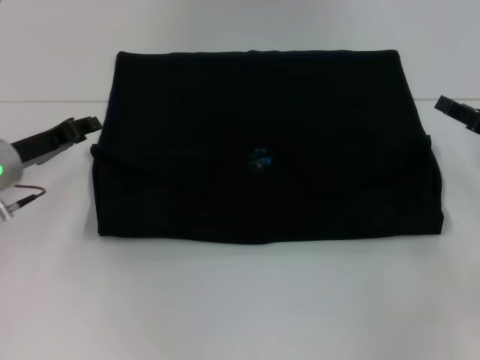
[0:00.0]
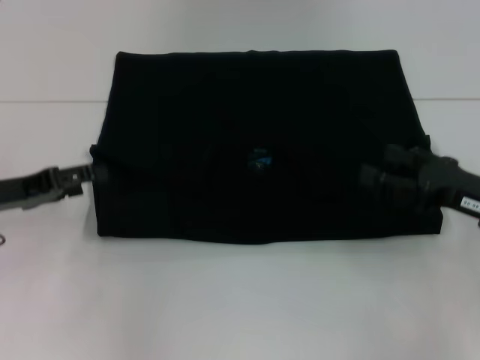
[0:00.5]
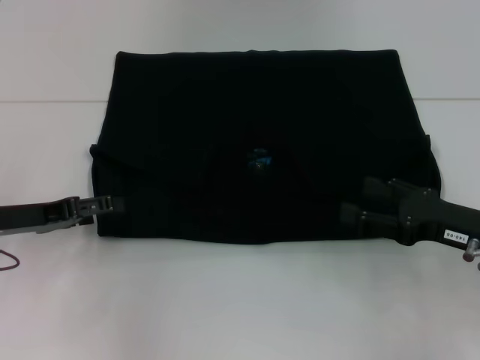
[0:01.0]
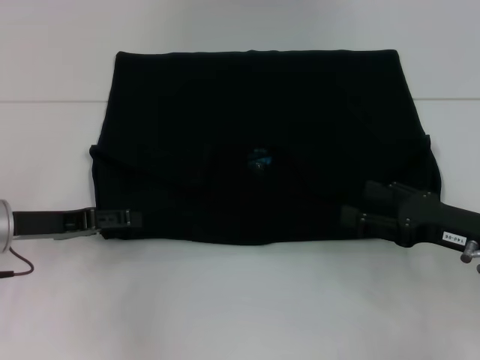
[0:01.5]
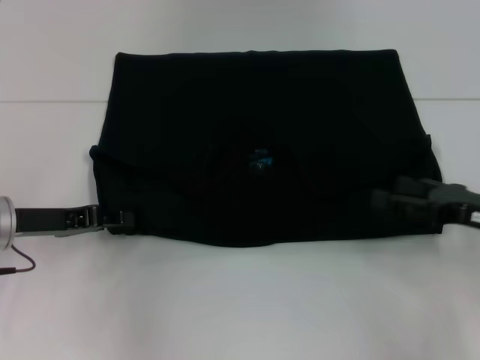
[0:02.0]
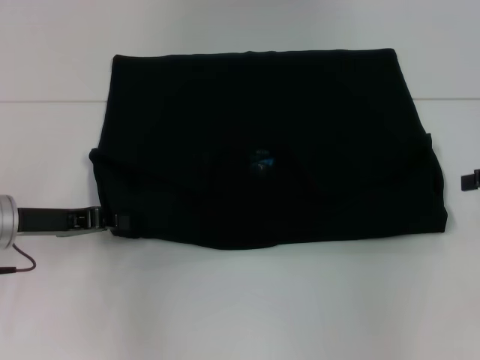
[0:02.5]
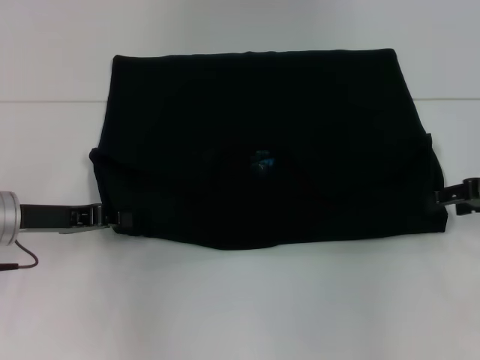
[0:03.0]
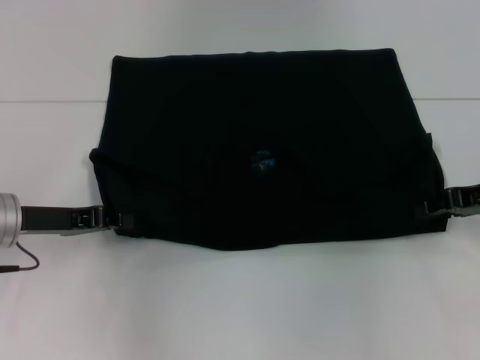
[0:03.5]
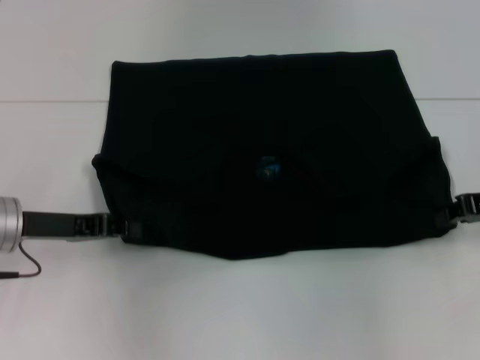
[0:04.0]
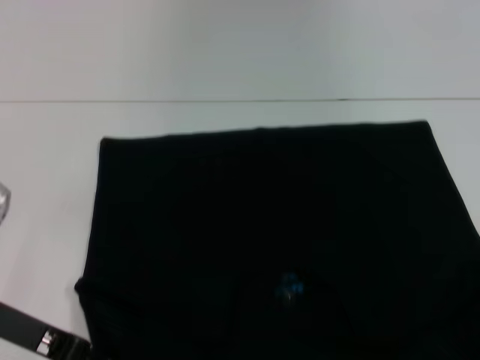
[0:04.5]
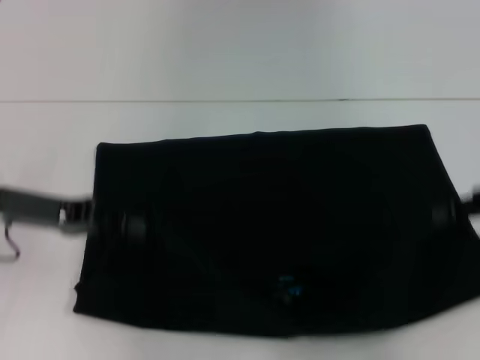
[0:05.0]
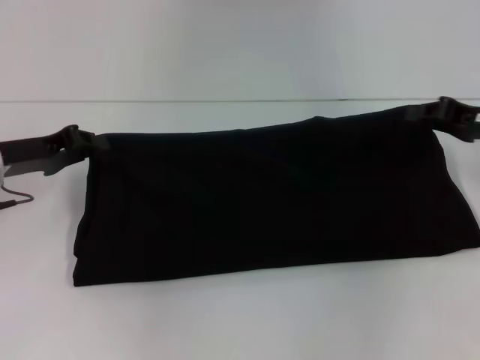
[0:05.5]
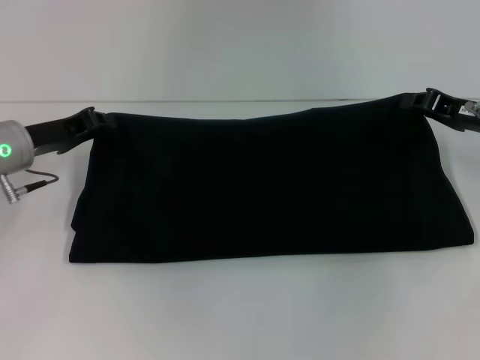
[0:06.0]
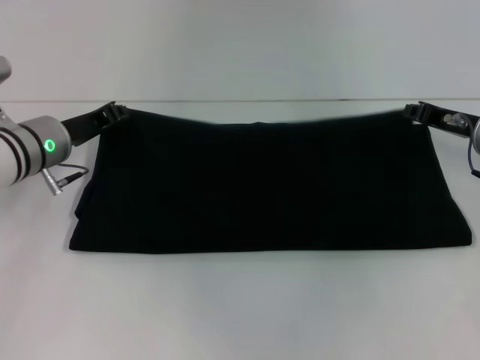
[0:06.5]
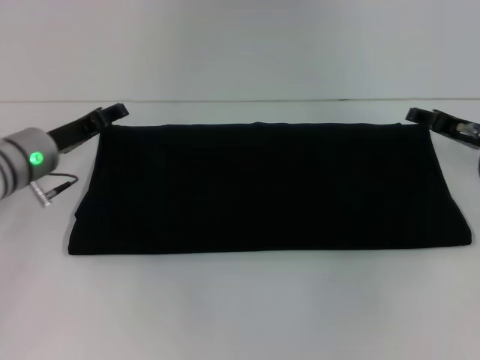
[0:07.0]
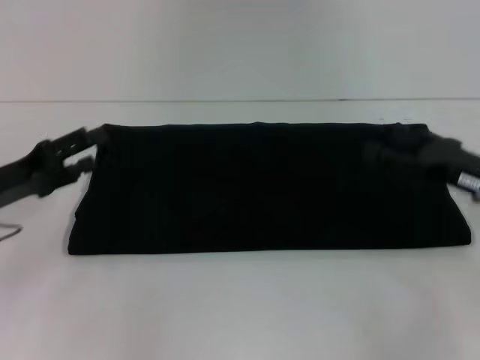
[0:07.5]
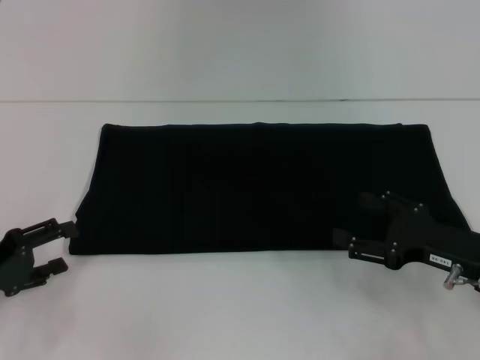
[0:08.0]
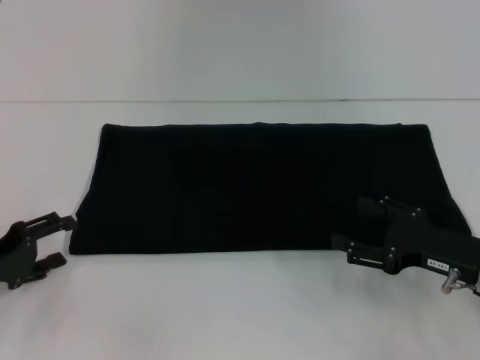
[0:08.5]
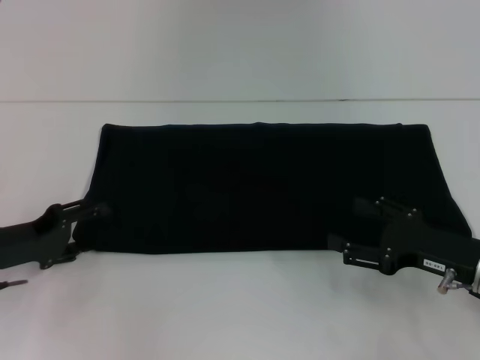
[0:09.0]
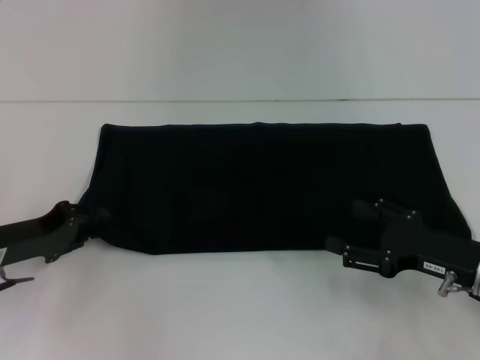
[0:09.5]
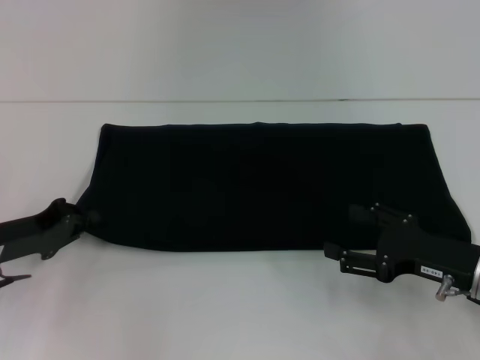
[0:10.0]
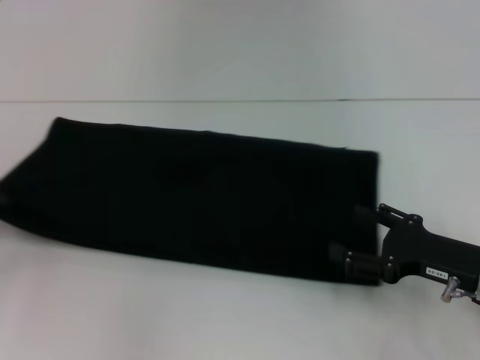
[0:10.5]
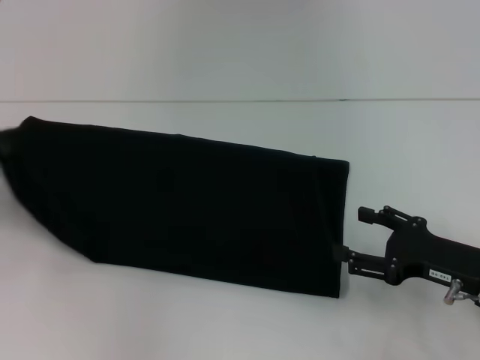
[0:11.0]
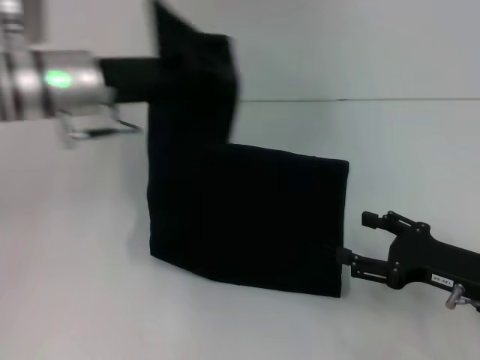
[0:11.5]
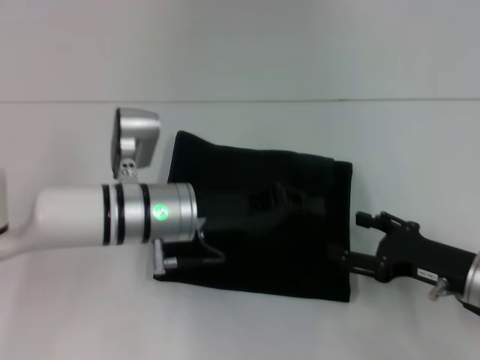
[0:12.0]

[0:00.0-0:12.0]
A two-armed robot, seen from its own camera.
Step, 0:00.0 to 0:04.5: Pull the clothes with your left hand.
Step, 0:00.0 to 0:04.5: Pull the clothes with your right hand.
Step, 0:05.0 to 0:06.5: Fold the clothes with your right hand.
0:00.0 to 0:02.0: The right gripper opens its fingers, while the left gripper opens up.
0:02.0 to 0:04.0: The left gripper closes up; the right gripper goes roughly 5 cm forward, and closes its fingers.
0:04.0 to 0:06.0: The left gripper is displaced forward by approximately 5 cm; the right gripper reaches approximately 10 cm backward, then returns.
0:06.0 to 0:08.0: The right gripper goes approximately 15 cm backward and downward, and opens up; the left gripper is displaced backward and to the left by approximately 15 cm, and opens its fingers.
0:08.0 to 0:10.0: The left gripper is displaced forward by roughly 5 cm, and closes up.
0:10.0 to 0:12.0: The left gripper shifts about 20 cm to the right.

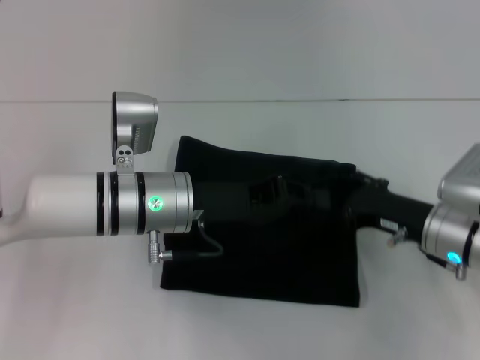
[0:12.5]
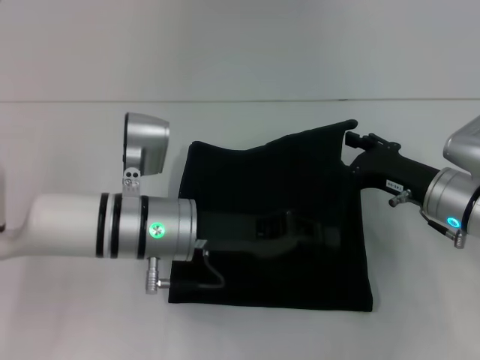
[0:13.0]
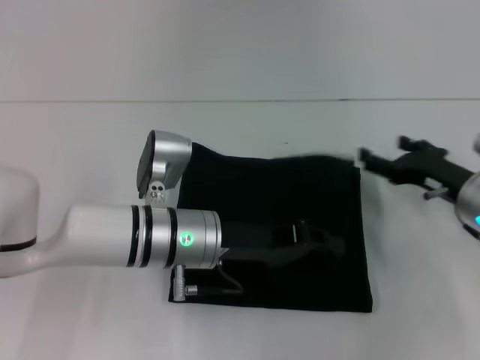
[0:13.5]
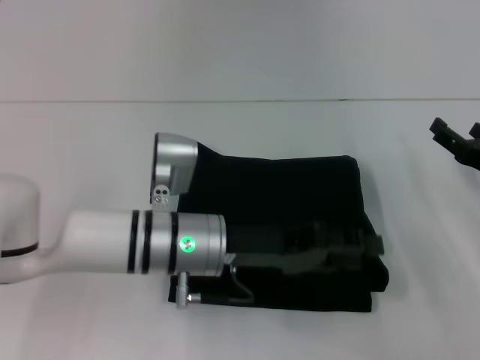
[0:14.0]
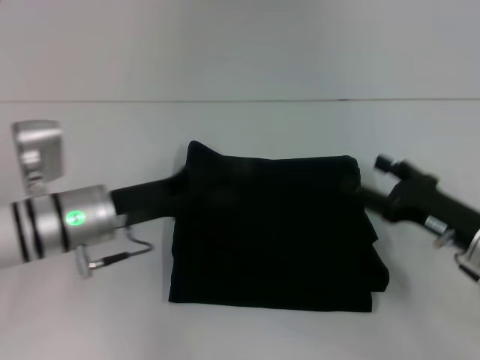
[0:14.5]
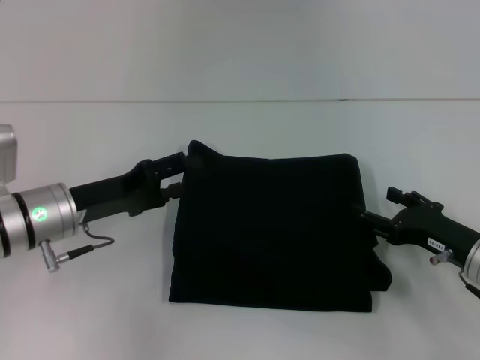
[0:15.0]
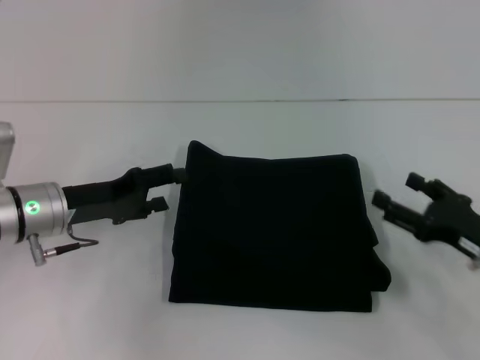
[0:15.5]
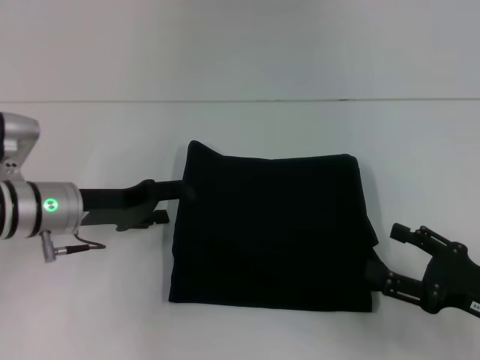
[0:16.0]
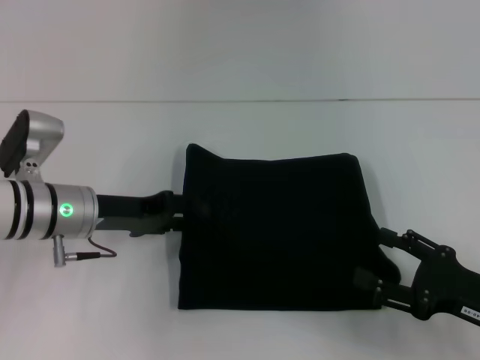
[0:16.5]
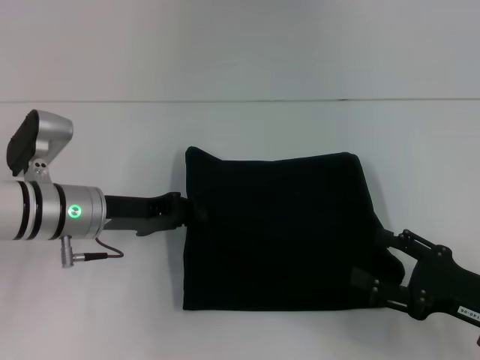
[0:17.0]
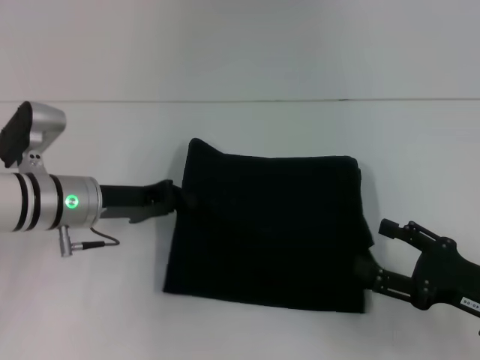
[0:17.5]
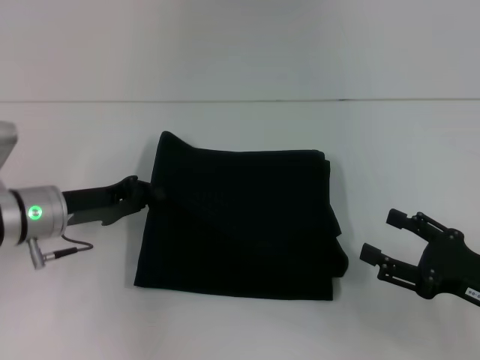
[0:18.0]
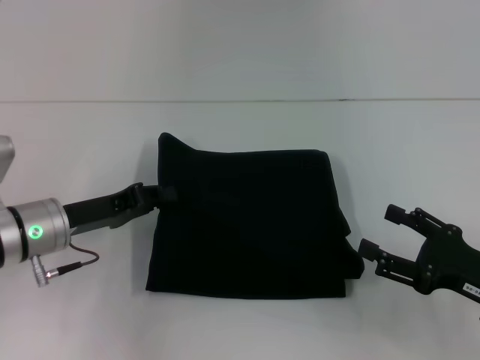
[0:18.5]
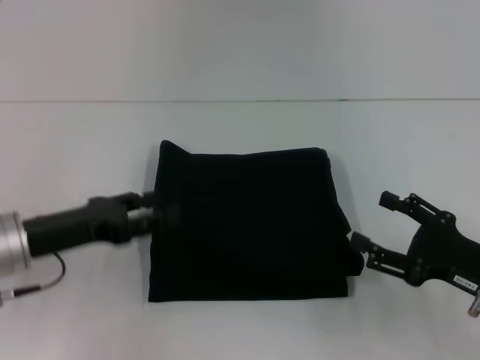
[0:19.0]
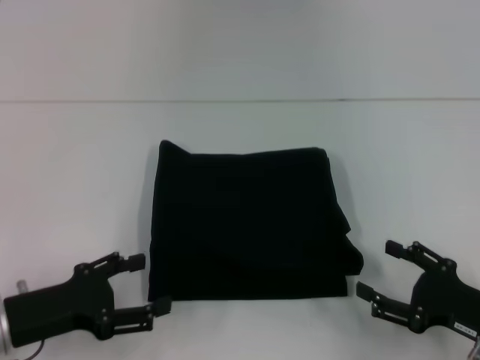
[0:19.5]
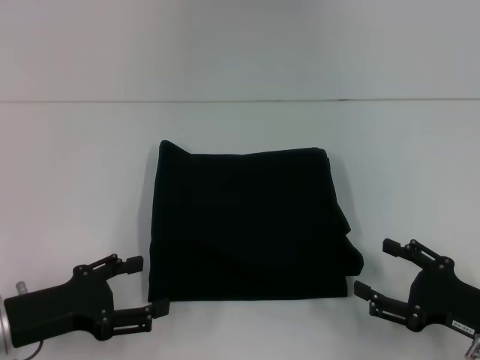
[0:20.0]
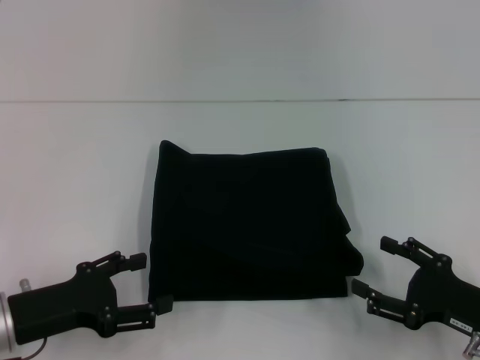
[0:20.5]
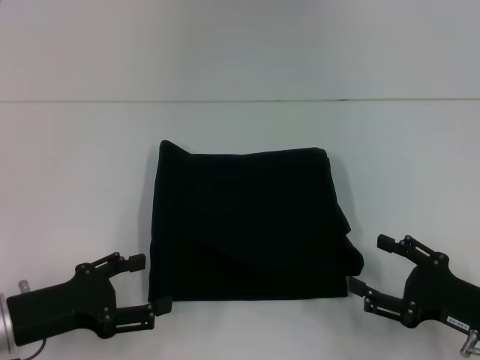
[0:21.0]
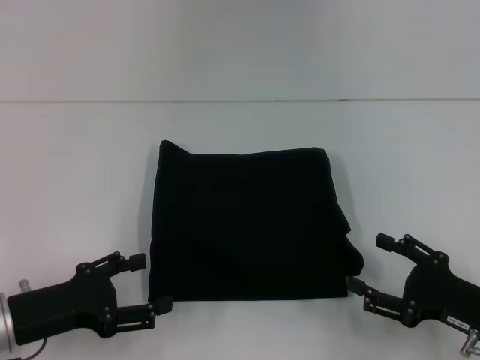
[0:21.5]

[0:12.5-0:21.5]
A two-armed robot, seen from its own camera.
0:12.5 to 0:14.5: The left gripper moves to the left, roughly 5 cm, and opens.
0:14.5 to 0:17.0: The right gripper goes about 5 cm backward. The left gripper closes its fingers.
0:17.0 to 0:19.5: The left gripper heads backward and to the left, covering approximately 15 cm, and opens up.
0:19.5 to 0:21.5: Both grippers stay about where they are.

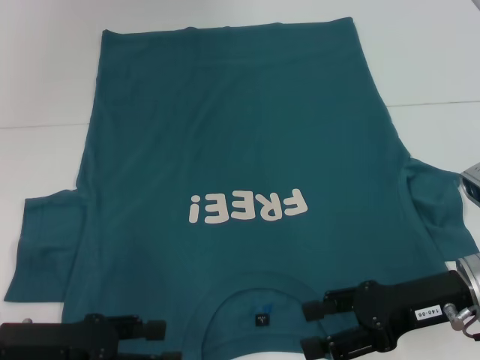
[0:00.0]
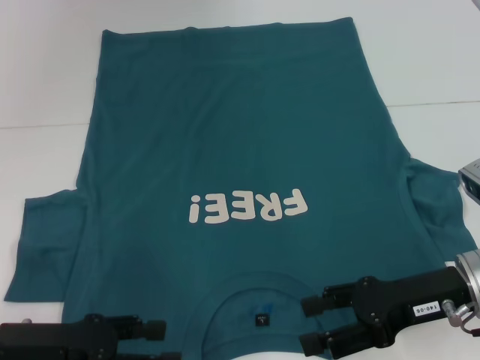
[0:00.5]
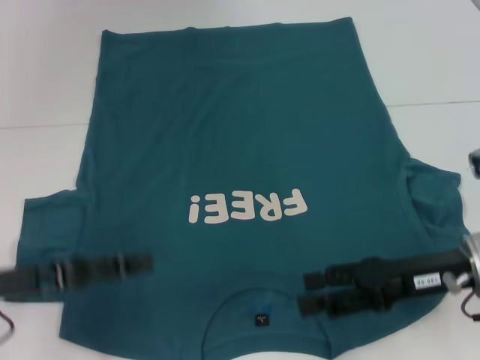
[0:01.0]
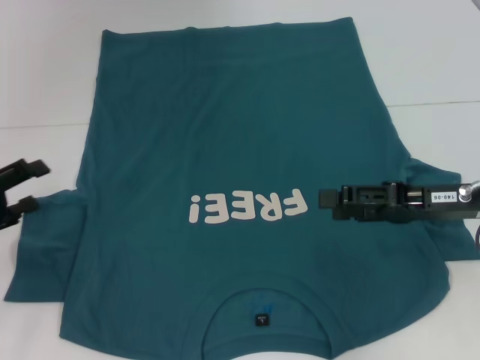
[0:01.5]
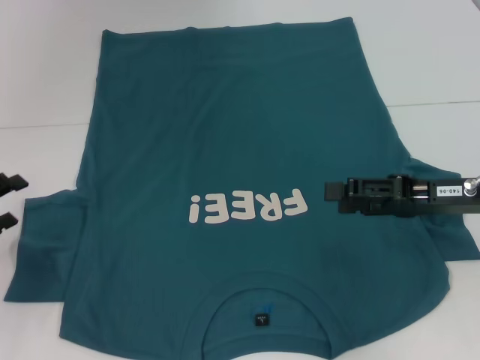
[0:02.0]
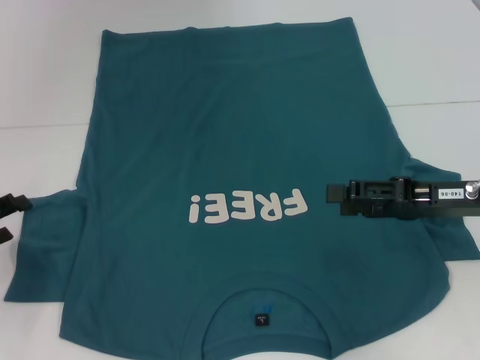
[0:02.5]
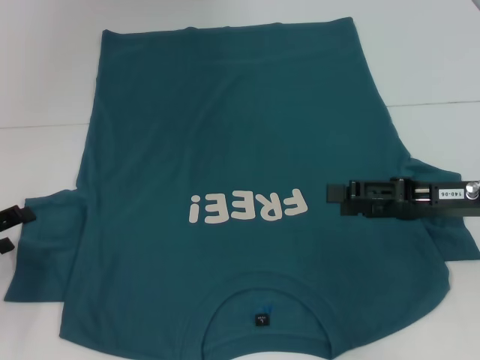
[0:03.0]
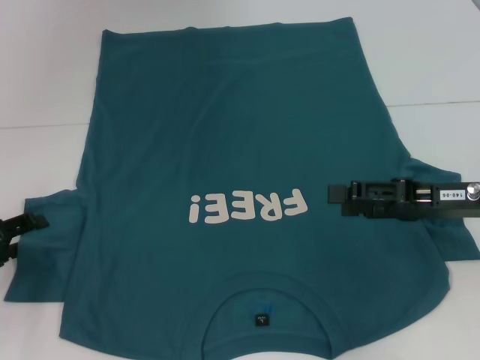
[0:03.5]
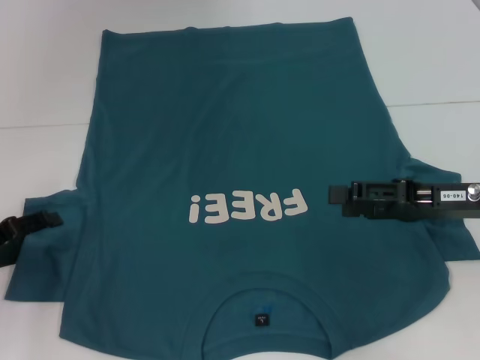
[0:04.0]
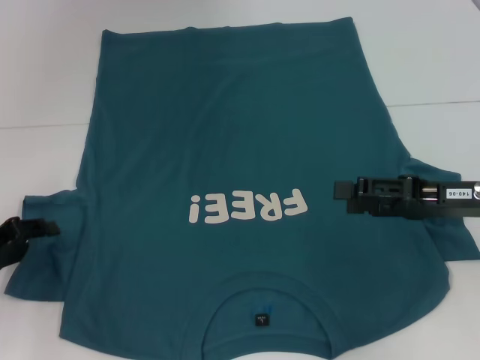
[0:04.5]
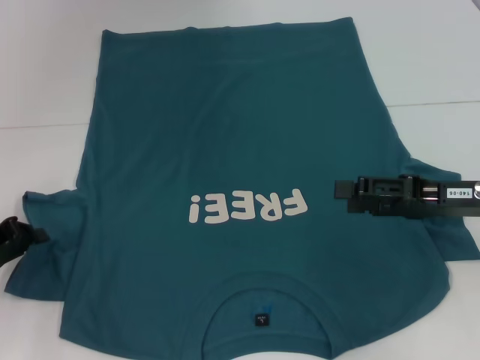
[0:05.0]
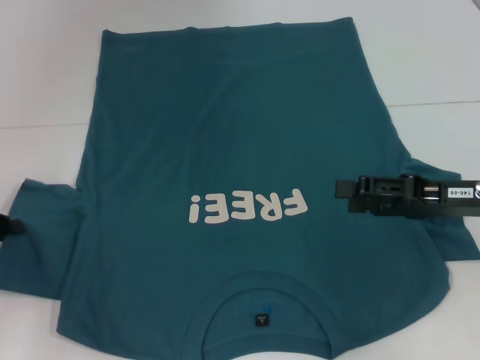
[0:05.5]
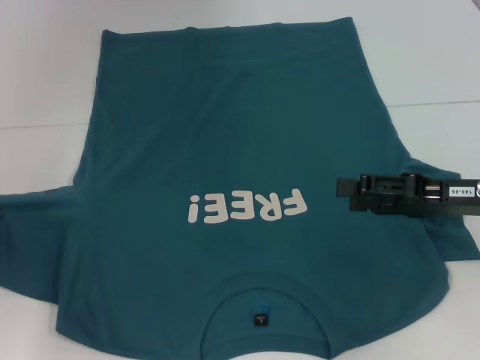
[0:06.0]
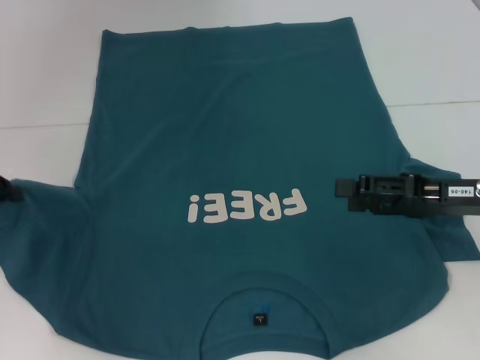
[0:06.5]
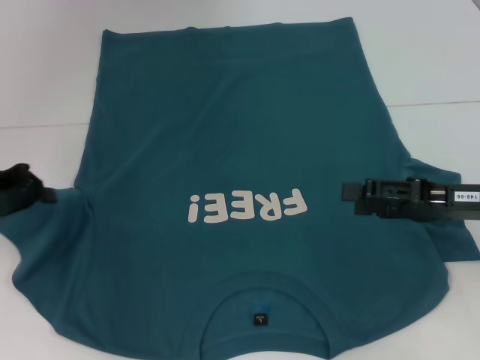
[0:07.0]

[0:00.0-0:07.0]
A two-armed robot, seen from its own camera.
0:00.0 to 0:02.0: The right gripper shifts by some 5 cm. The left gripper heads to the left and forward, covering about 10 cm.
0:02.0 to 0:03.5: The grippers move only a little.
0:03.5 to 0:05.0: The left gripper closes its fingers.
0:05.0 to 0:07.0: The left gripper travels upward and forward by roughly 10 cm.
